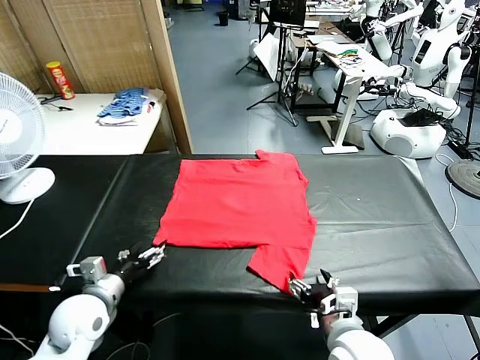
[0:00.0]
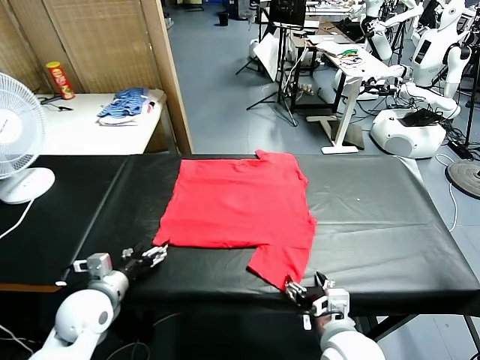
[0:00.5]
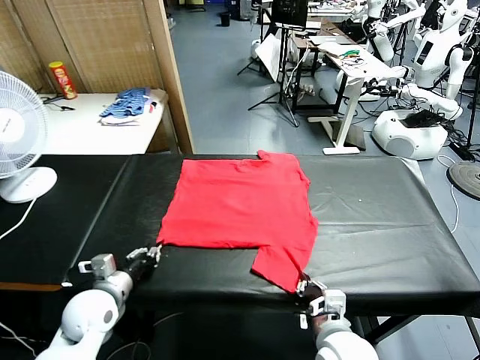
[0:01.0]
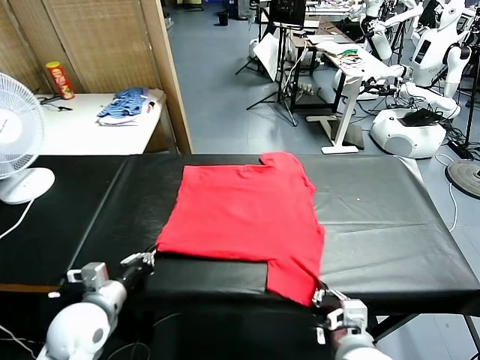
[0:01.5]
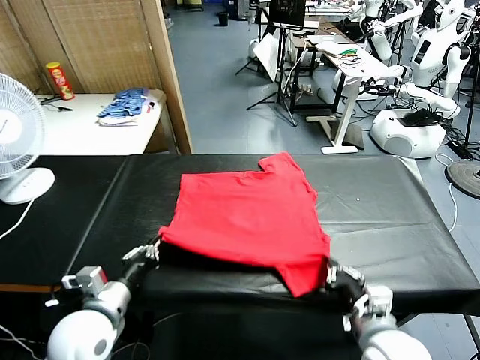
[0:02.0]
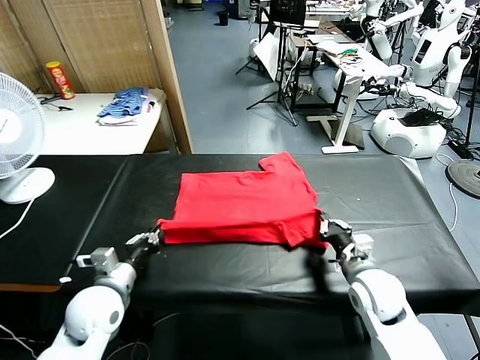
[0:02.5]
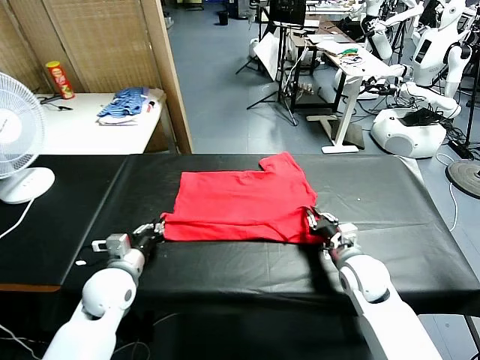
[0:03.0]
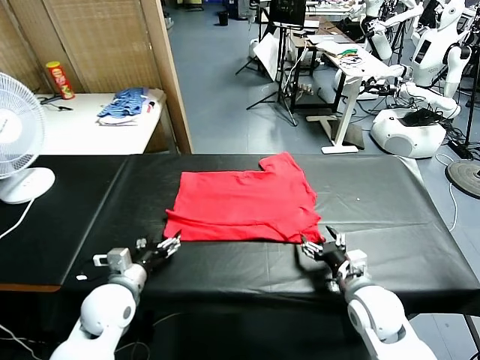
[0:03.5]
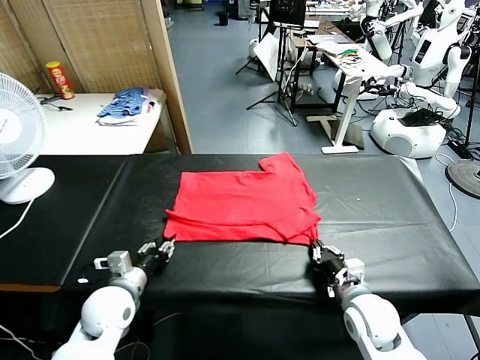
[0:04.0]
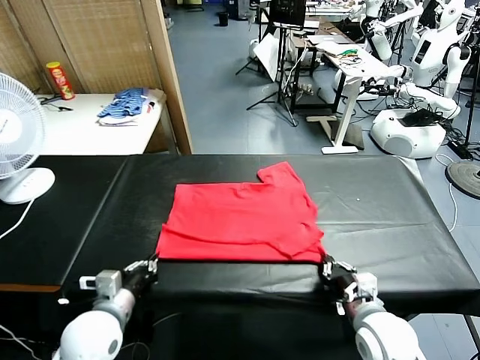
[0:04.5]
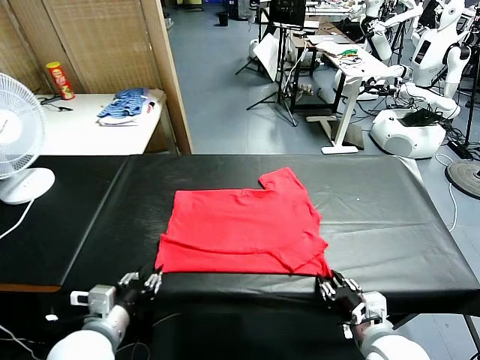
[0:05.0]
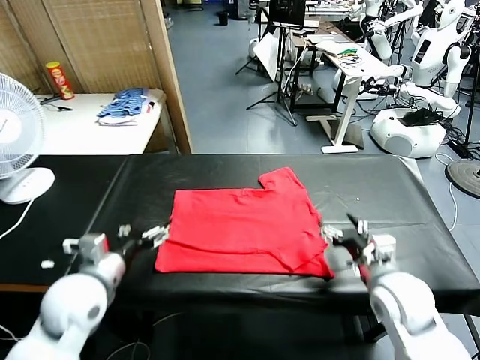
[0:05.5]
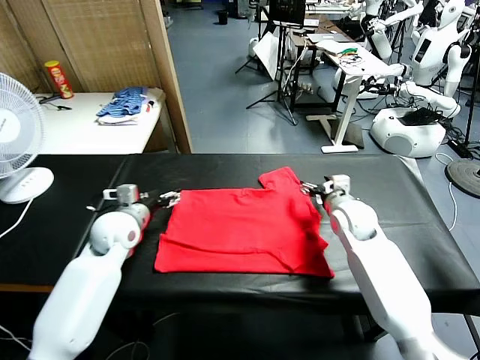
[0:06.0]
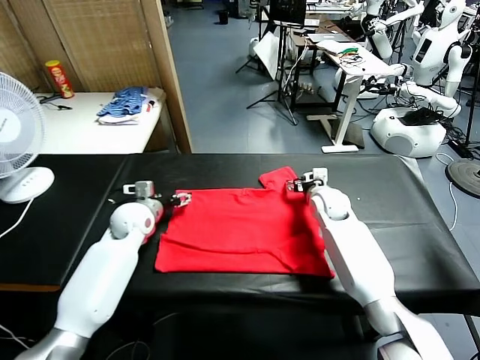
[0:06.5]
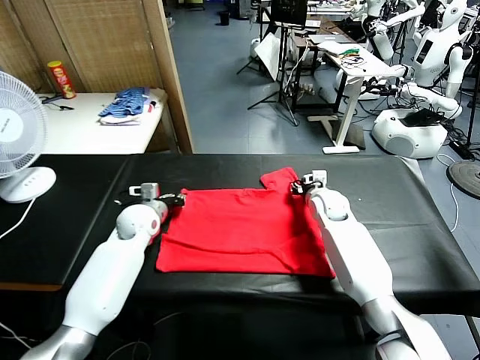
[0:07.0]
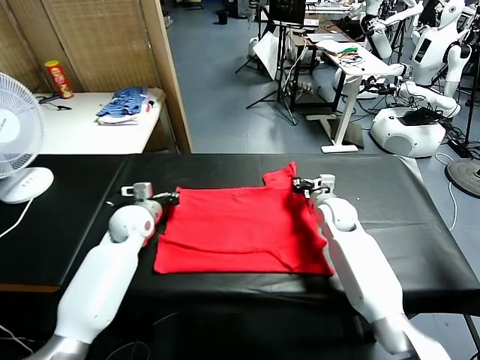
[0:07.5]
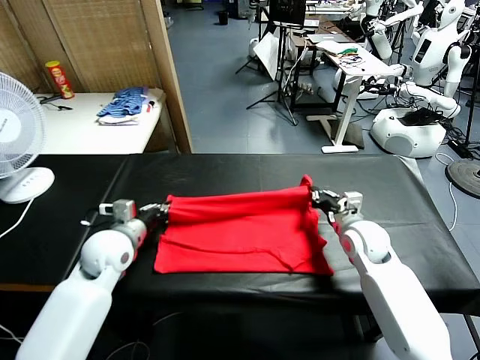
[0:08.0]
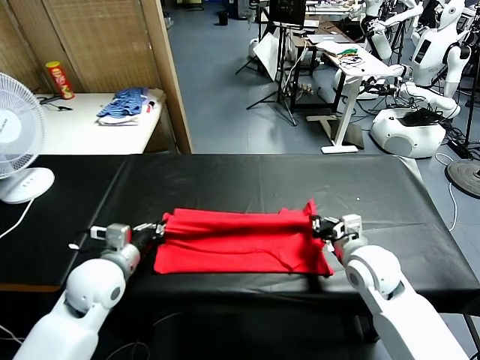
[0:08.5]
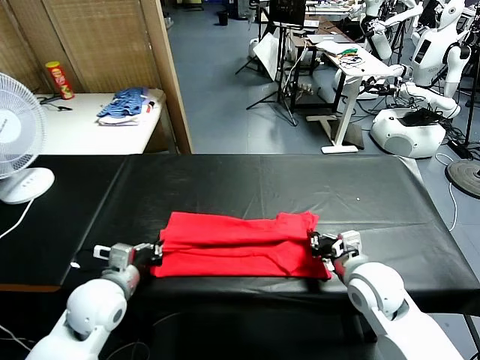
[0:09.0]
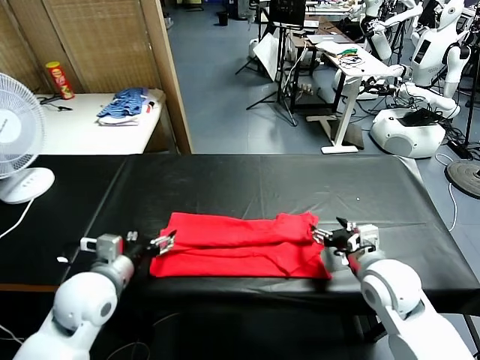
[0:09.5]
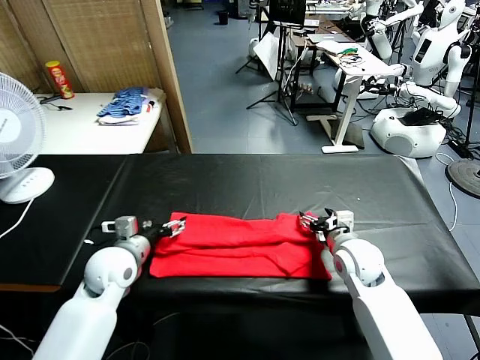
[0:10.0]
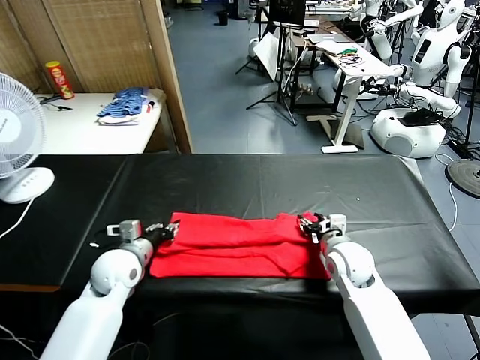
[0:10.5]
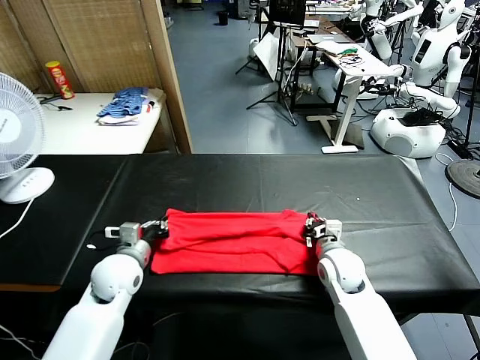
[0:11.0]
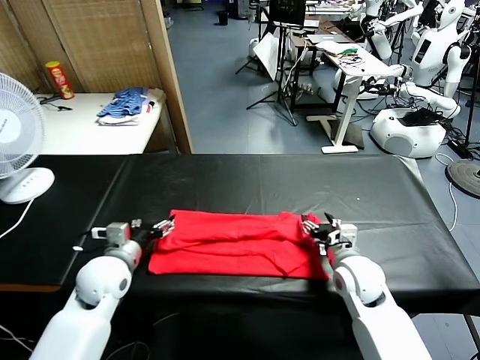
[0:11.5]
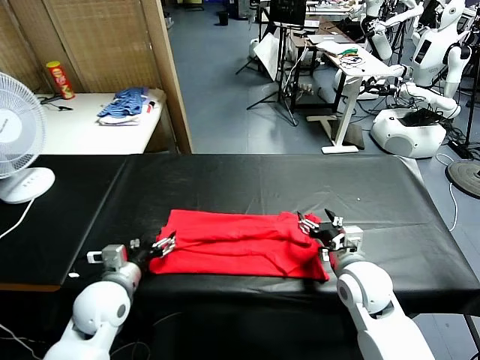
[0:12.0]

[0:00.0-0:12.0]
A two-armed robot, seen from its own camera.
Task of the whole recording: fold and organize the clothes.
Step, 0:00.0 to 0:01.5: use both grippers simultaneously to clamp the lower edge of the clothing fabric.
Step, 0:02.0 to 0:03.0: use both grippers to drag the lower edge of the fabric forward and fold it over the upper edge.
Step, 0:03.5 to 0:05.0: Drag the clothes downward with both gripper.
Step, 0:05.5 to 0:07.5: use both grippers simultaneously to clamp the upper edge of the clothing fabric.
Step, 0:08.0 to 0:09.0: use both grippers to drag the upper edge of the fabric backward and fold it over the lower edge.
0:02.0 to 0:04.0: The right gripper travels forward and back again, approximately 10 cm each way, and opens, then closes again; the left gripper goes some 5 cm downward, and opens, then closes again.
0:04.0 to 0:06.0: The left gripper travels forward by some 15 cm, and opens up. Meanwhile the right gripper is displaced forward by approximately 25 cm, and opens.
0:06.0 to 0:08.0: The grippers both shift backward by about 10 cm. The right gripper closes up. Meanwhile the left gripper closes its fingers.
0:08.0 to 0:10.0: The left gripper goes backward and returns, roughly 10 cm each way, and opens up; the right gripper reaches approximately 10 cm backward, then returns, and opens up.
0:10.0 to 0:12.0: Both grippers move backward, approximately 5 cm. The left gripper closes, then reopens. The right gripper closes and opens again.

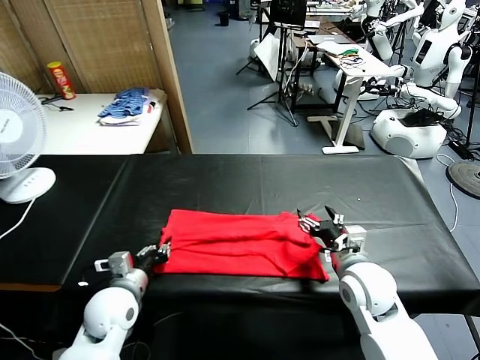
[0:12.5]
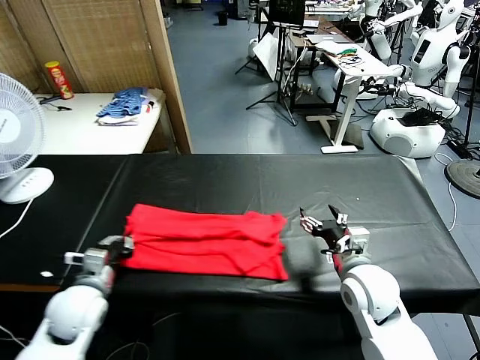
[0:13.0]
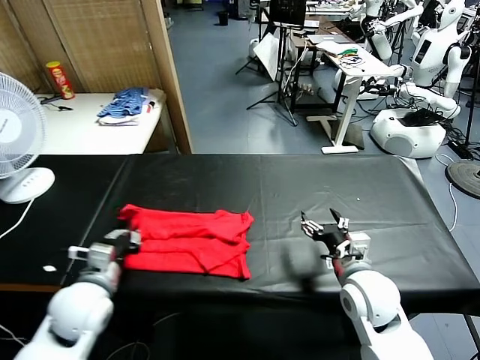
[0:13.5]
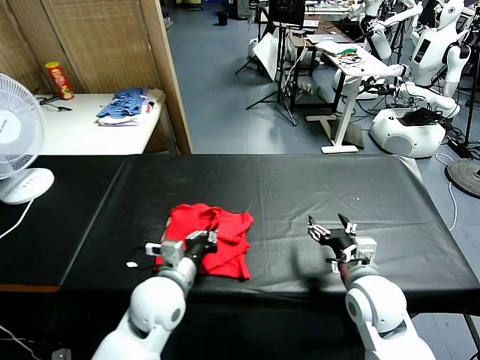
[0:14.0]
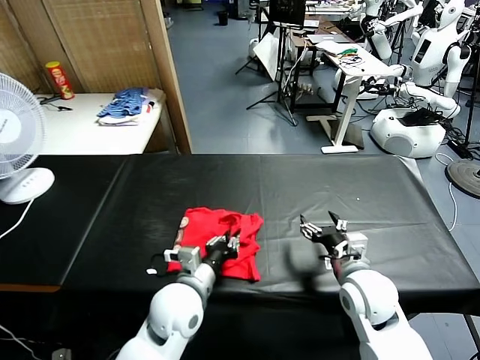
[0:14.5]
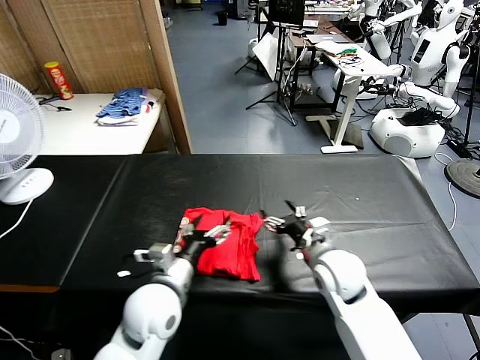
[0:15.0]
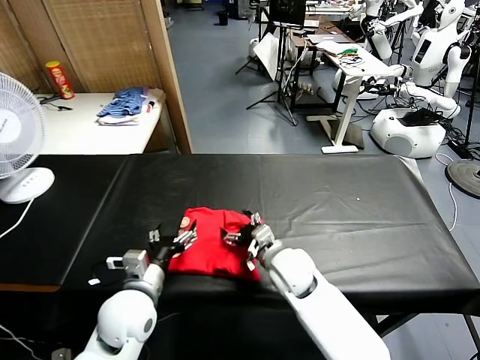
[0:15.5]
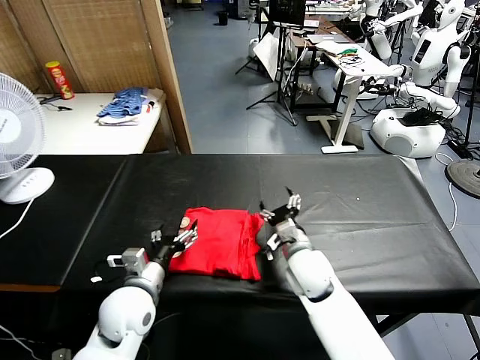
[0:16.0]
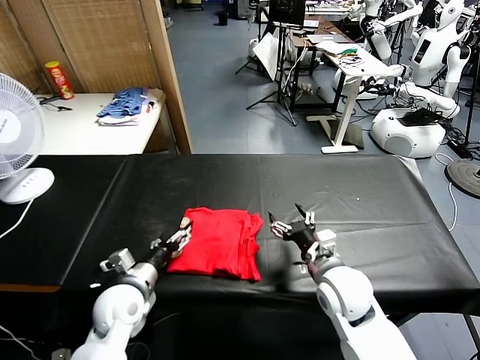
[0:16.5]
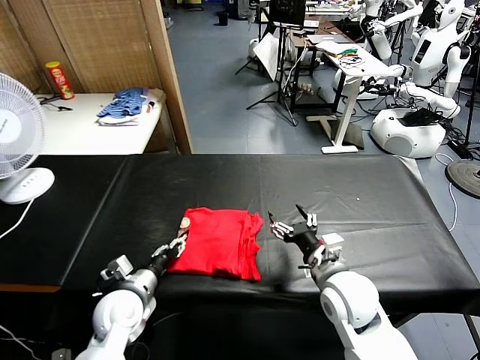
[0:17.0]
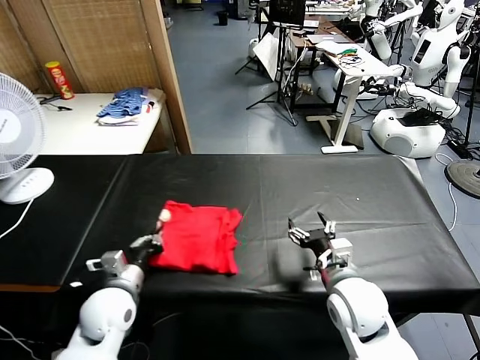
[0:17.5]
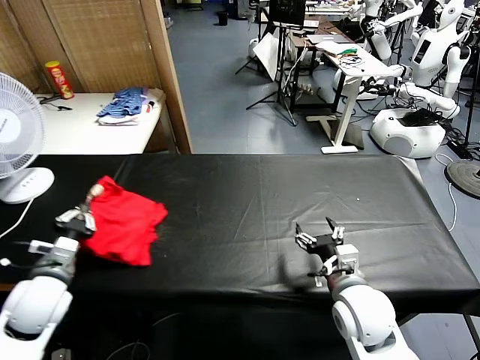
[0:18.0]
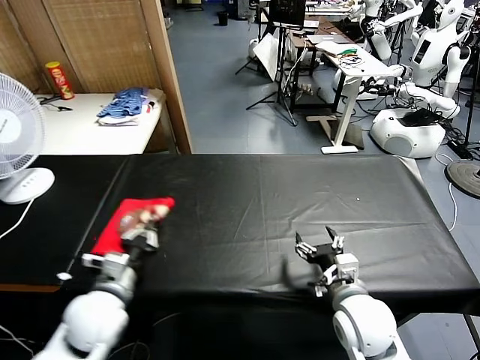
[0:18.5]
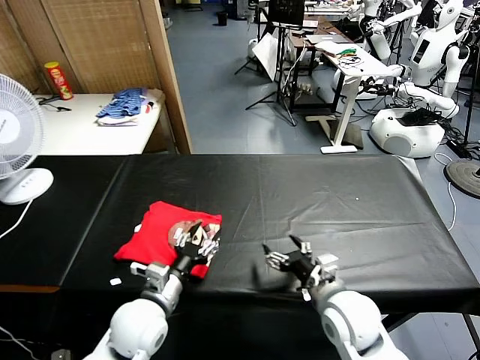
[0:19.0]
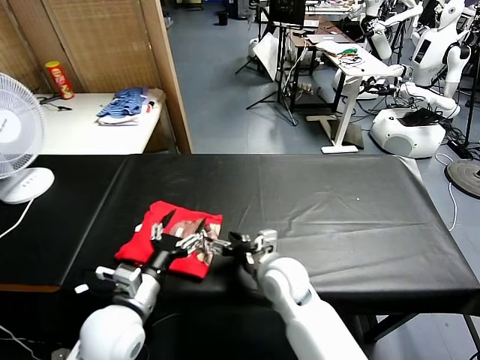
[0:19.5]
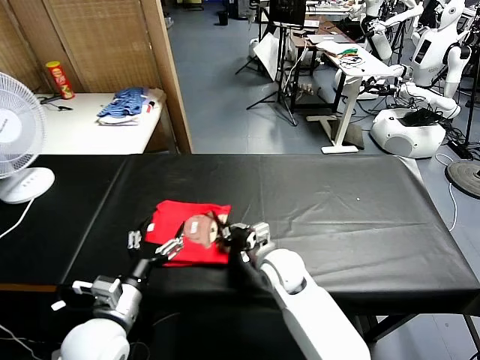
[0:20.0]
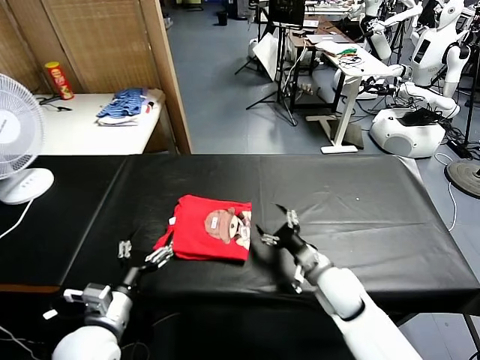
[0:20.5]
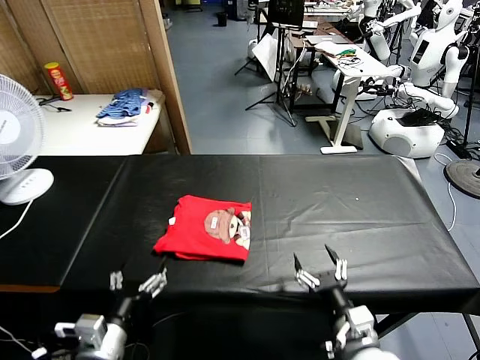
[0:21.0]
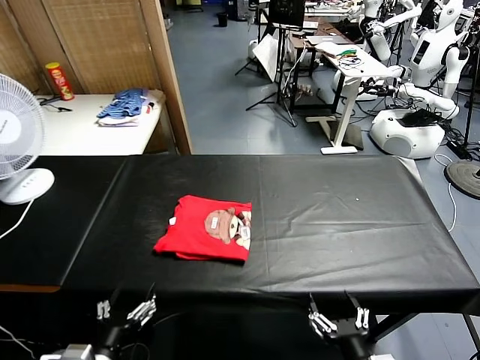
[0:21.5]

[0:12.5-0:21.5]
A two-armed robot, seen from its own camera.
Task of the whole recording: fold and organize the clothes.
Step, 0:13.0 to 0:14.5: use the left gripper to drag the left edge of the fabric to the left and folds it over the right edge.
Step, 0:15.0 to 0:18.5: Flip the folded clothes over with left gripper.
Step, 0:19.0 to 0:20.0: Drag the clothes to the center of the table.
0:12.5 to 0:14.5: The left gripper moves to the right, about 15 cm.
0:14.5 to 0:17.0: The right gripper reaches roughly 15 cm to the left, then returns. Meanwhile the left gripper goes roughly 15 cm to the left and downward, and opens, then closes once more.
0:17.0 to 0:19.5: The right gripper travels to the left and forward by roughly 10 cm. The left gripper travels upward and backward by approximately 10 cm, travels to the left and back again, some 10 cm each way, and opens.
0:19.5 to 0:21.5: The right gripper shifts roughly 30 cm backward and to the right, and closes, then opens again. Meanwhile the left gripper moves backward, some 15 cm.
